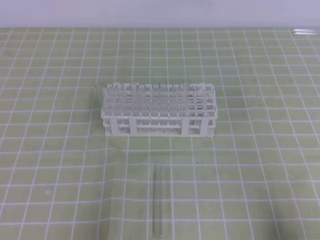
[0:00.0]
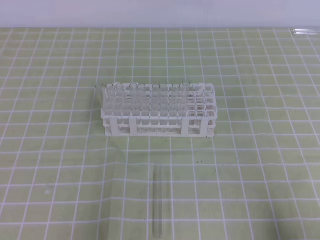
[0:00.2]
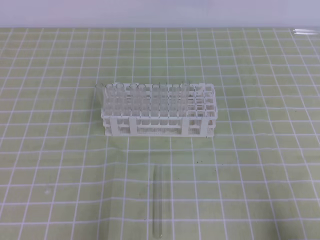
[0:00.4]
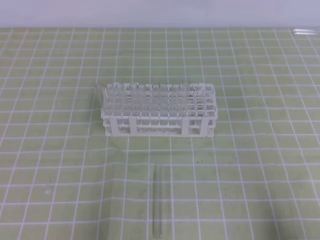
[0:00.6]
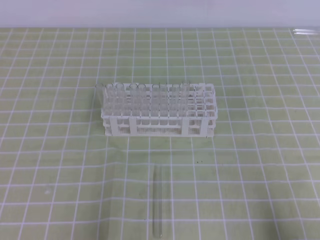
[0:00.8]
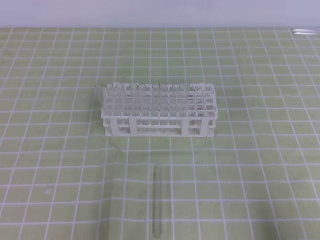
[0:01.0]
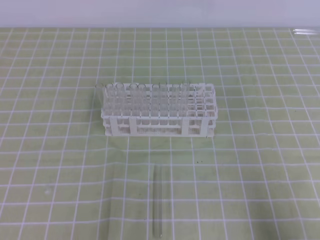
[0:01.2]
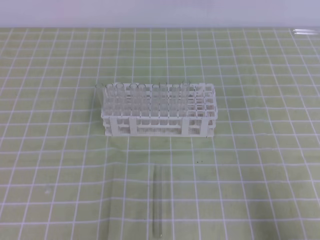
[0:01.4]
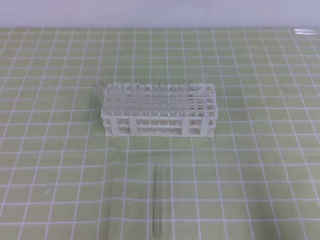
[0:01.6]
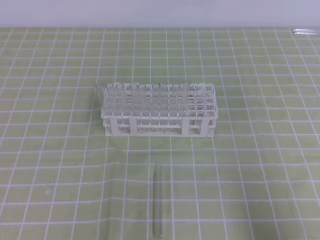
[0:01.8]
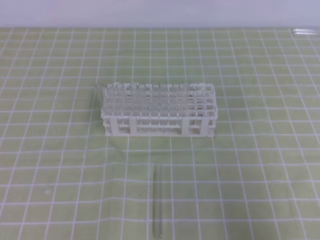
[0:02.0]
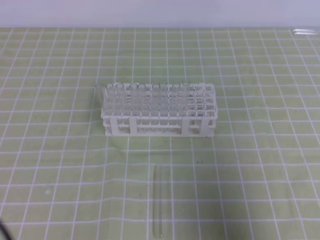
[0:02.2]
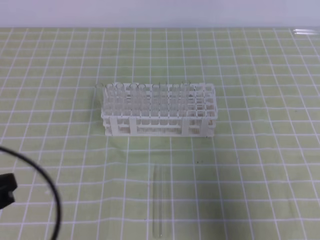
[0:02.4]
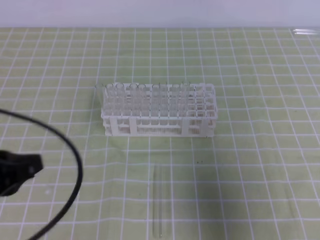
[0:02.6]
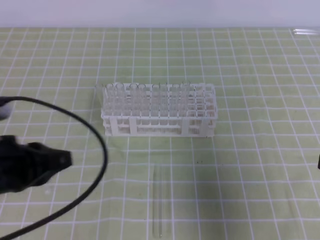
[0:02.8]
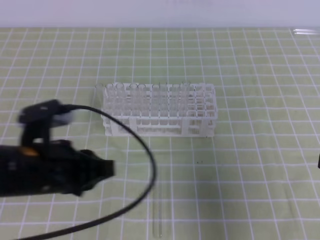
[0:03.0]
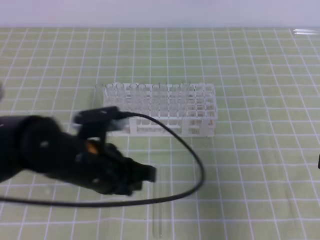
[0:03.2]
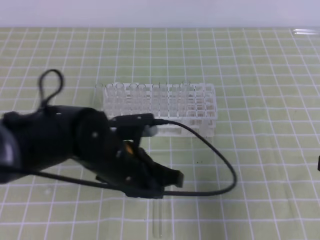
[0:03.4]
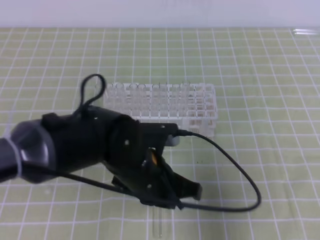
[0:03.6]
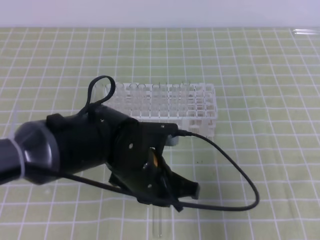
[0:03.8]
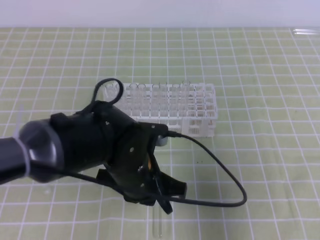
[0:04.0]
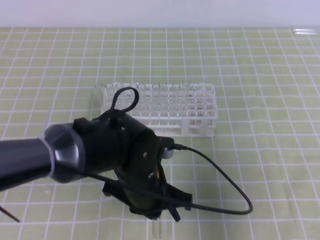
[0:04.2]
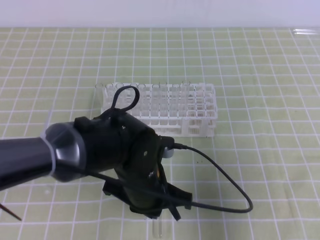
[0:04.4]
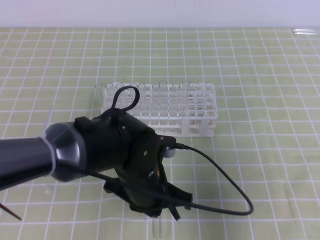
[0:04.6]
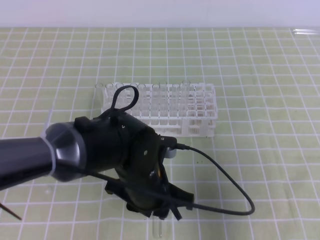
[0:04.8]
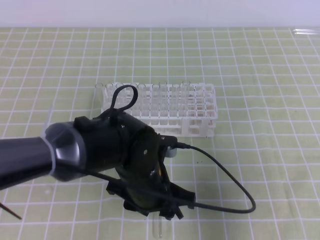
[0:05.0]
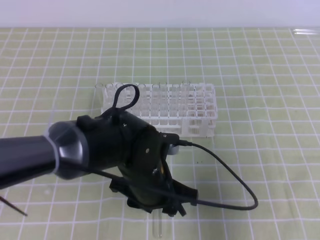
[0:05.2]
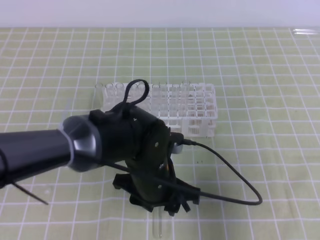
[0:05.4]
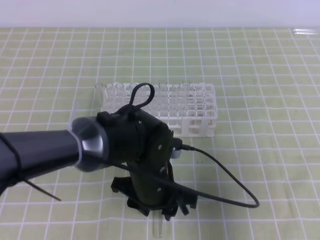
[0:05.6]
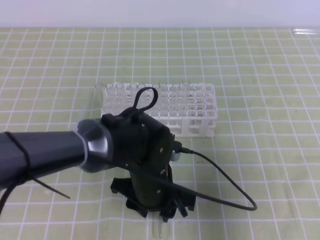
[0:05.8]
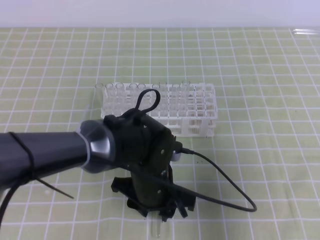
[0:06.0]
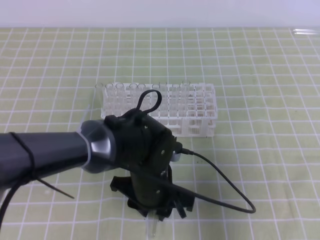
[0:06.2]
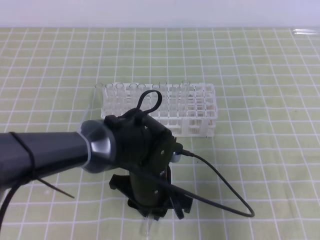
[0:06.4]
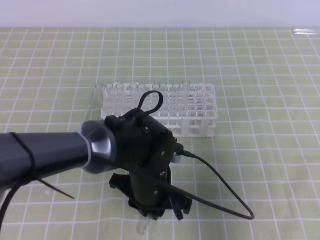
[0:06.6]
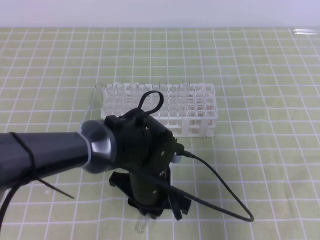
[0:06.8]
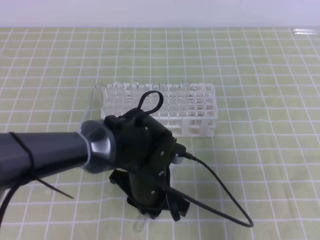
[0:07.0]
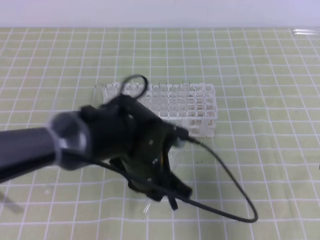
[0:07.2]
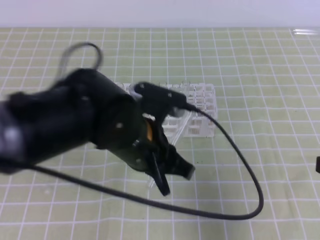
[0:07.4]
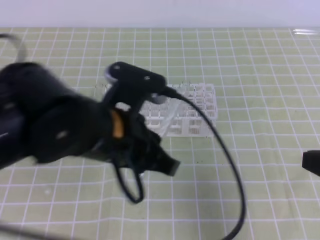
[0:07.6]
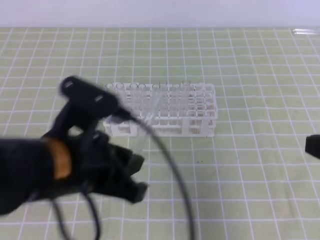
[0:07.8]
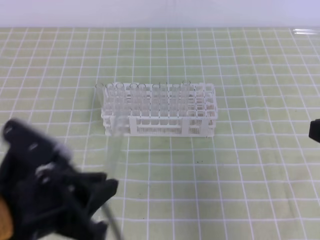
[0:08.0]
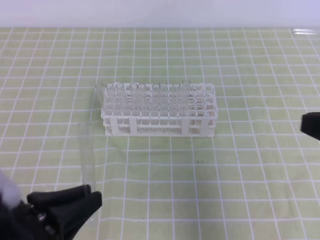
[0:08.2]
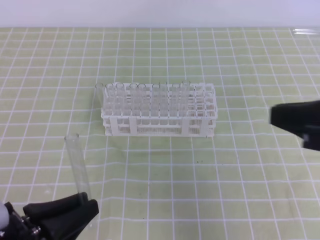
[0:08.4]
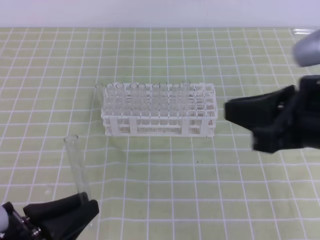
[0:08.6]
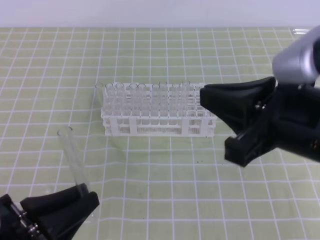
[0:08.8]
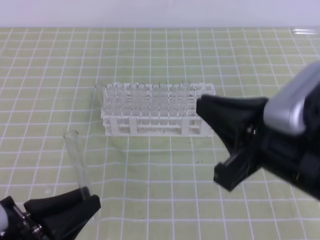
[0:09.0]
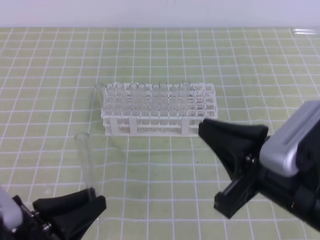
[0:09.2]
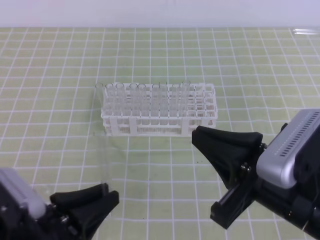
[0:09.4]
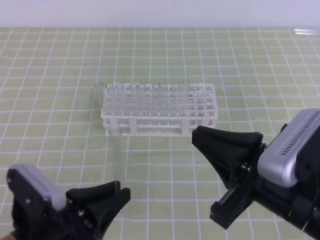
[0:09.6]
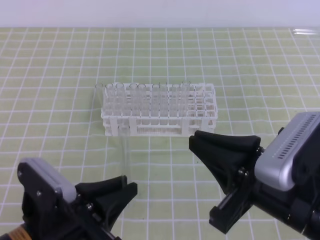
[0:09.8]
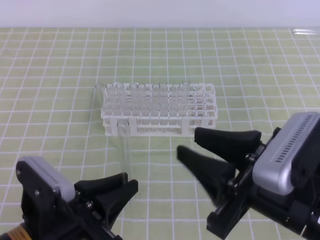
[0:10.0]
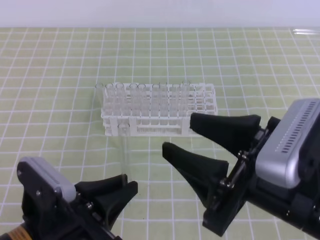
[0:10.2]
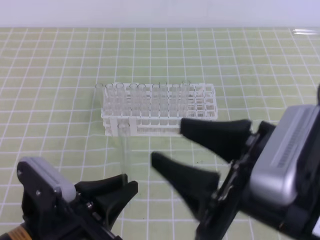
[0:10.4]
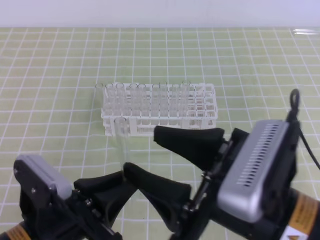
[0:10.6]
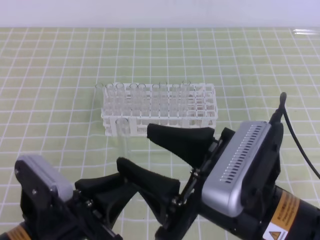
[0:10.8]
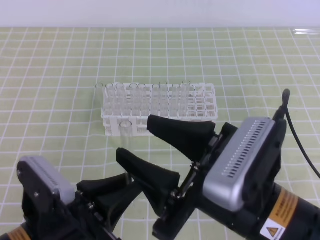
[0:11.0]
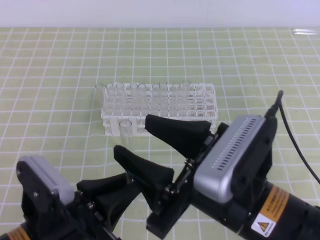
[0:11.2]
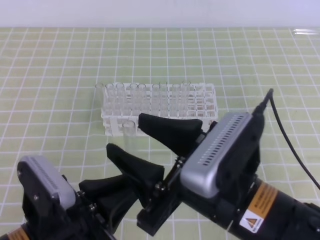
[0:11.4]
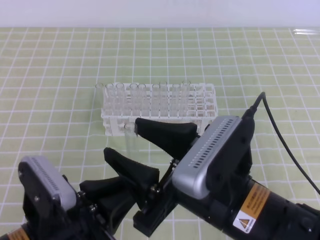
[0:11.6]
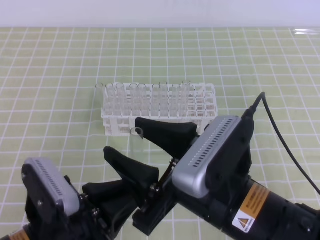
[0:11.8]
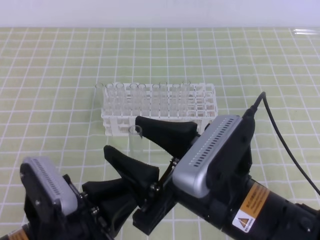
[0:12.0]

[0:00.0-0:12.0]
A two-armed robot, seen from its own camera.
0:01.6 to 0:03.0: The right gripper is displaced upward and forward by approximately 15 cm, while the left gripper shifts roughly 20 cm forward, to the right and upward.
0:03.0 to 0:04.4: The left gripper goes some 15 cm to the right and downward.
0:04.4 to 0:06.0: The left gripper opens.
0:06.0 to 0:07.6: The left gripper shifts about 15 cm upward, and closes its fingers.
0:07.6 to 0:09.0: The left gripper heads to the left, backward and downward, covering approximately 20 cm; the right gripper goes some 10 cm to the left.
0:09.0 to 0:10.4: The right gripper opens. Meanwhile the left gripper shifts by roughly 5 cm.
0:10.4 to 0:12.0: The right gripper travels to the left by some 5 cm.

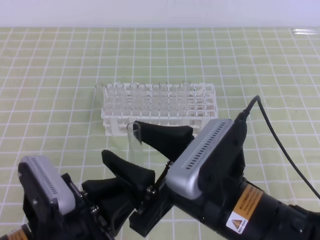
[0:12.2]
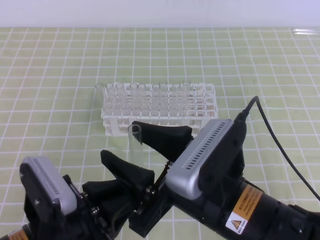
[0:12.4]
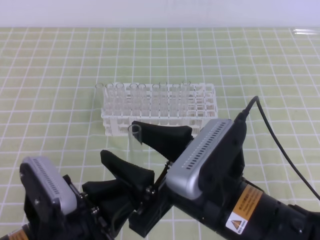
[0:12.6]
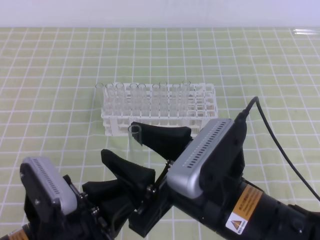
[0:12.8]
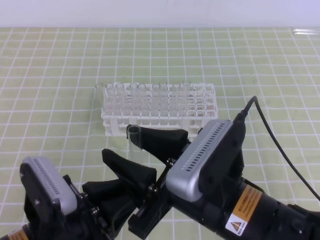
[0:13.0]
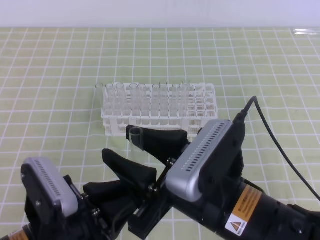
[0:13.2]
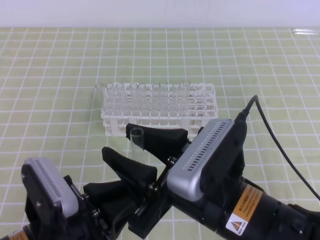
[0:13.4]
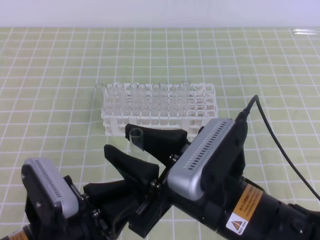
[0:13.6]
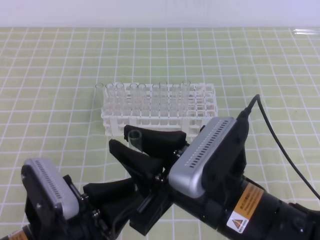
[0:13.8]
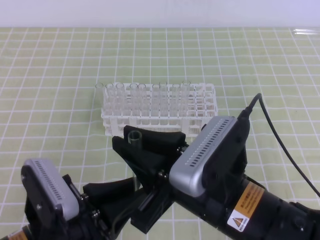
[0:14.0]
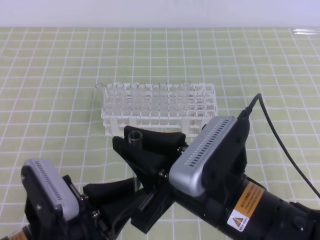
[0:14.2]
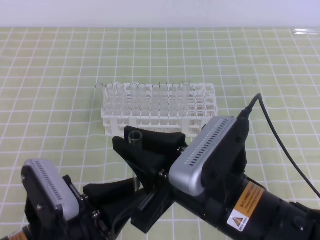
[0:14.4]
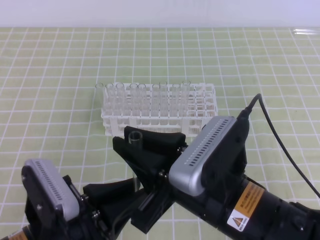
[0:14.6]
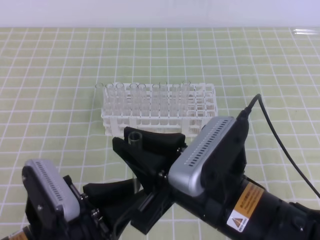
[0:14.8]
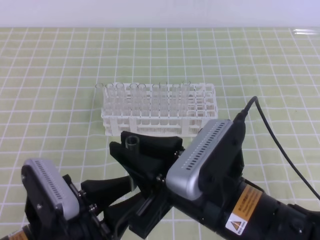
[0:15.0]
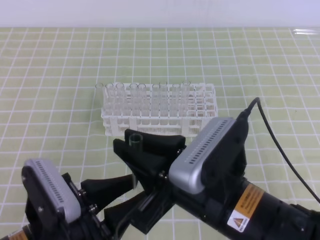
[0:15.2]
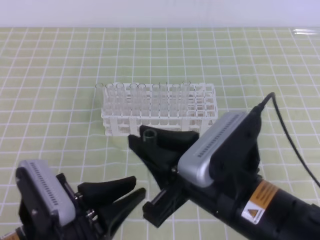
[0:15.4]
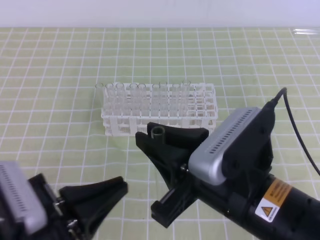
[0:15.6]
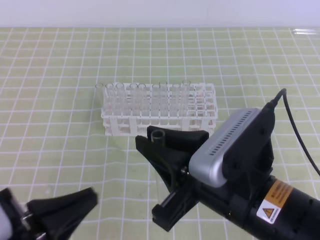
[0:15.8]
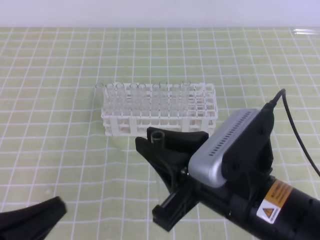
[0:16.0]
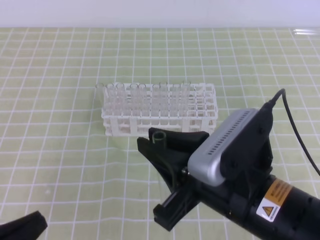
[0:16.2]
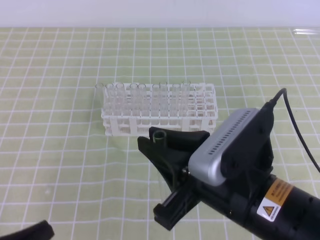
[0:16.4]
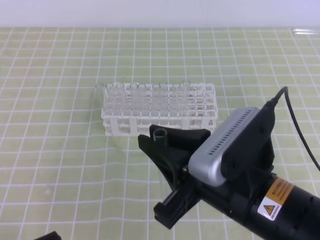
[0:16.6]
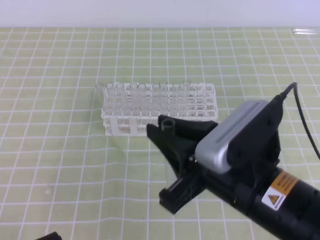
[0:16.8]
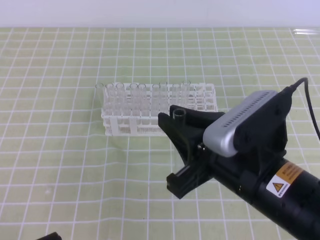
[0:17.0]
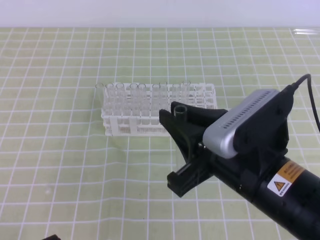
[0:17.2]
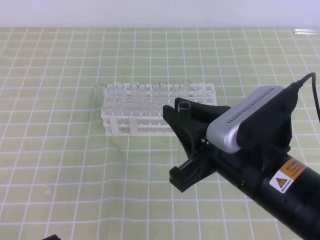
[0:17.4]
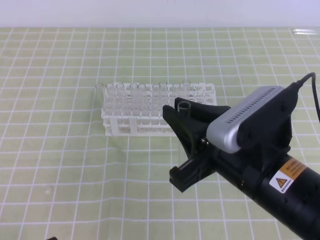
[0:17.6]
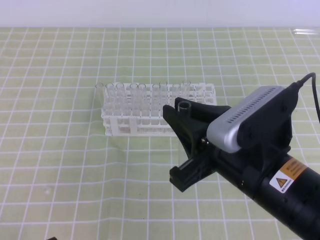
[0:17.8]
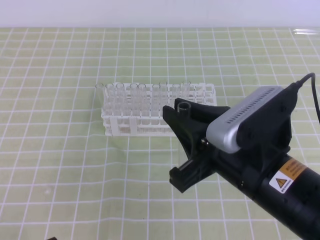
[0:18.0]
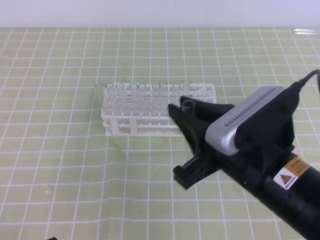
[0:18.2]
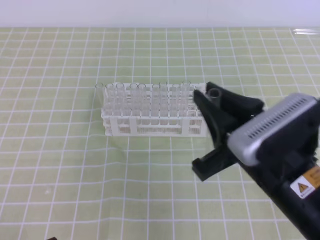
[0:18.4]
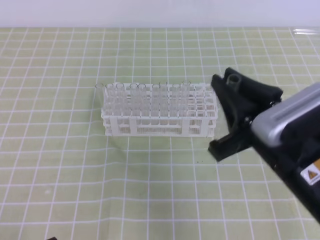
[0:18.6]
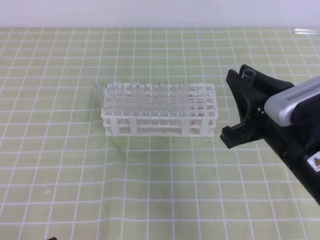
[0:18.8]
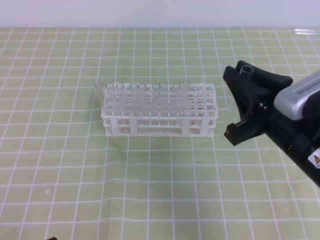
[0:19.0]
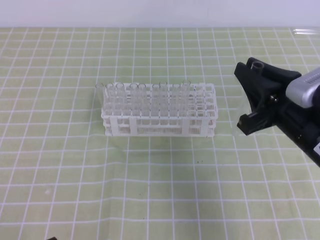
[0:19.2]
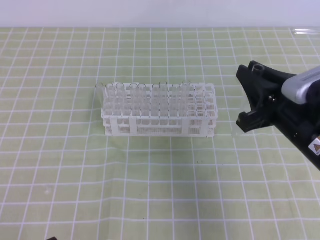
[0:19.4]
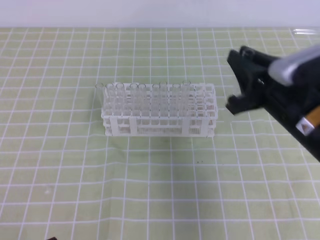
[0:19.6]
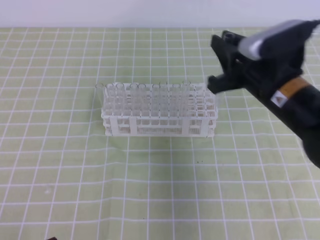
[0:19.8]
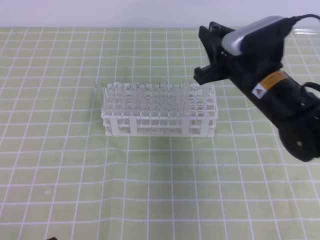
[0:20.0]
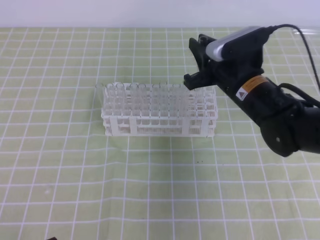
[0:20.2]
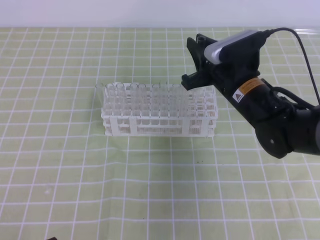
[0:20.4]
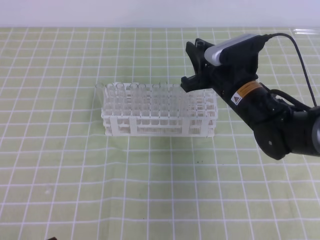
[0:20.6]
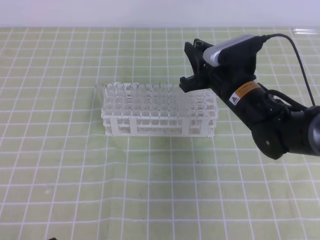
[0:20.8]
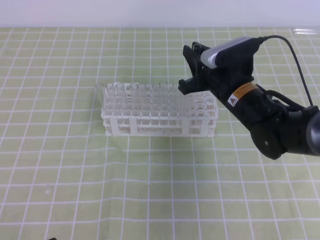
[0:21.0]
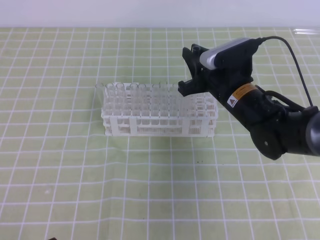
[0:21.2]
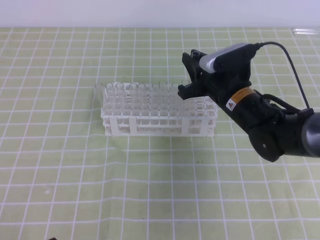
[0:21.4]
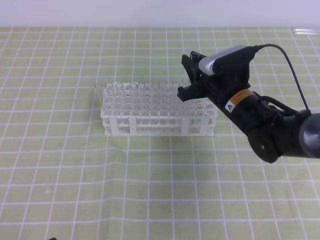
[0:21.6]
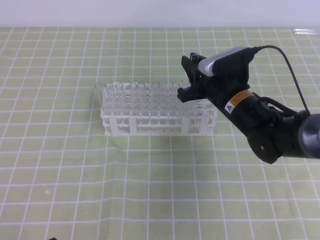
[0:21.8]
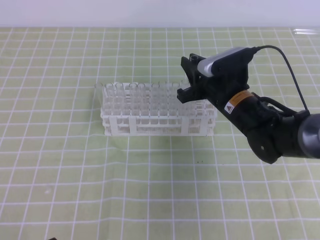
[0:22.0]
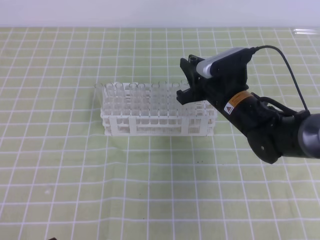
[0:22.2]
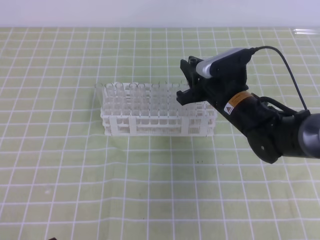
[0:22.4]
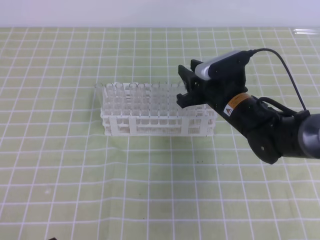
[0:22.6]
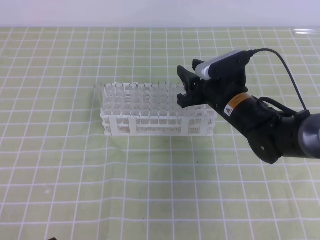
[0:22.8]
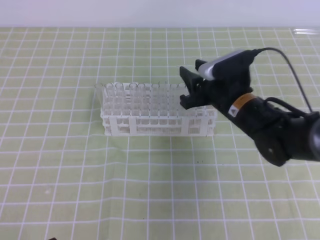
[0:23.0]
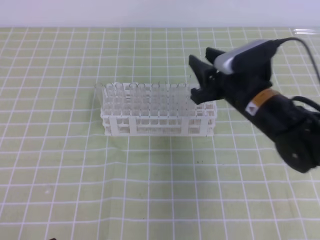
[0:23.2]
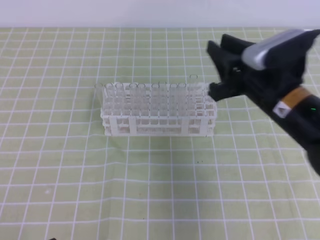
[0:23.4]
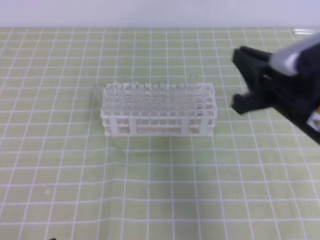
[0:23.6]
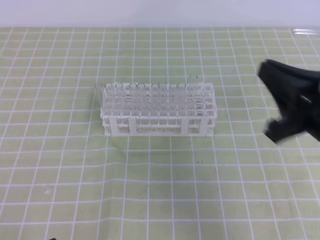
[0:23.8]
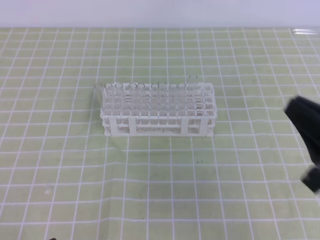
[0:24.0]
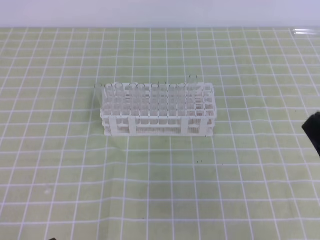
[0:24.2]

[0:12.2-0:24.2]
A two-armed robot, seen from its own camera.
0:12.2 to 0:13.8: The right gripper closes up.
0:13.8 to 0:15.2: The left gripper opens.
0:15.2 to 0:16.6: The left gripper shifts about 10 cm to the left and backward, and closes up.
0:16.6 to 0:18.2: The grippers make only small movements.
0:18.2 to 0:19.8: The right gripper shifts about 15 cm forward.
0:19.8 to 0:21.2: The right gripper heads forward and downward, covering some 10 cm.
0:21.2 to 0:22.6: The grippers make only small movements.
0:22.6 to 0:24.2: The right gripper goes approximately 25 cm backward and to the right, and closes up.
